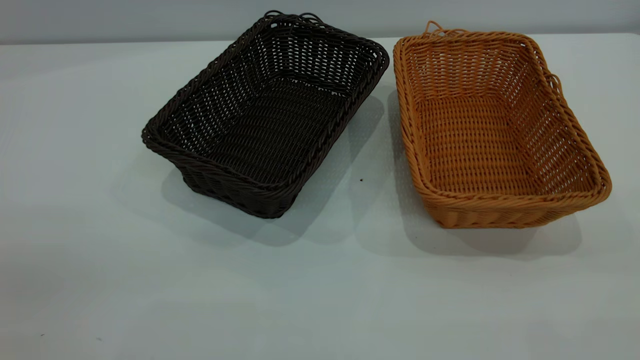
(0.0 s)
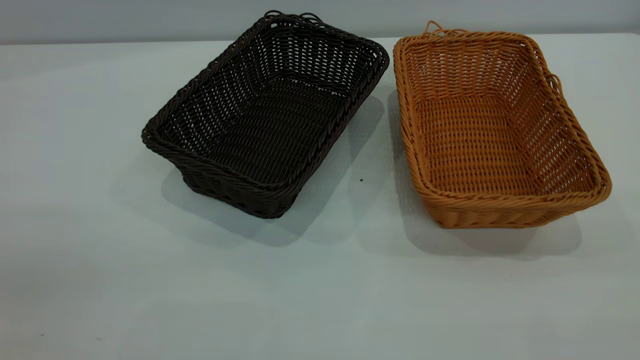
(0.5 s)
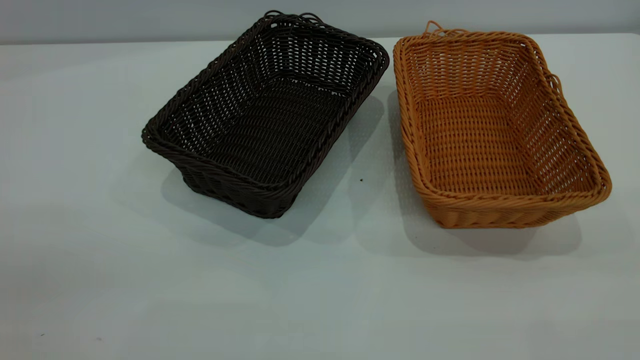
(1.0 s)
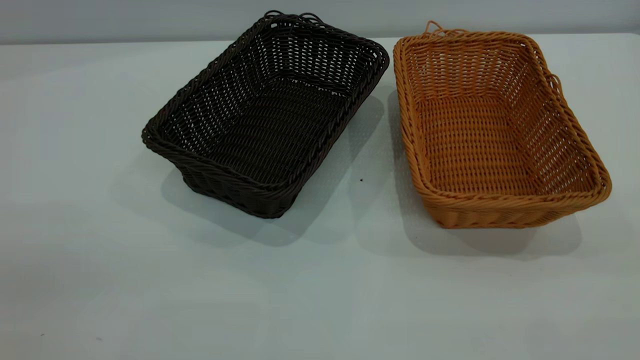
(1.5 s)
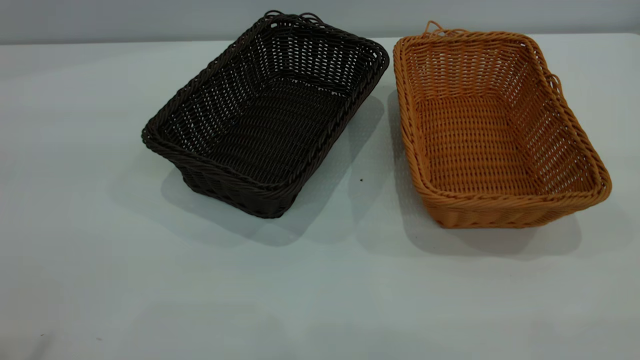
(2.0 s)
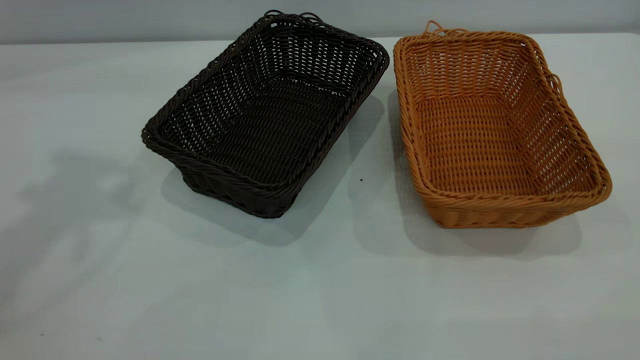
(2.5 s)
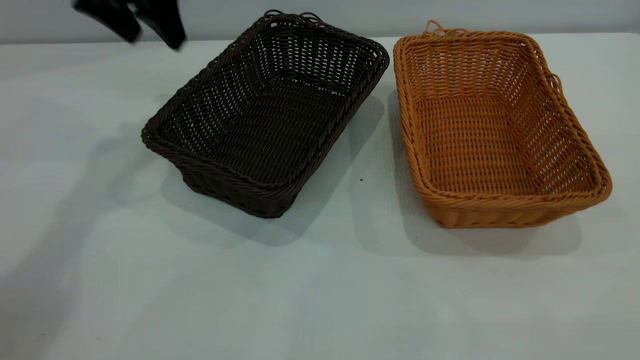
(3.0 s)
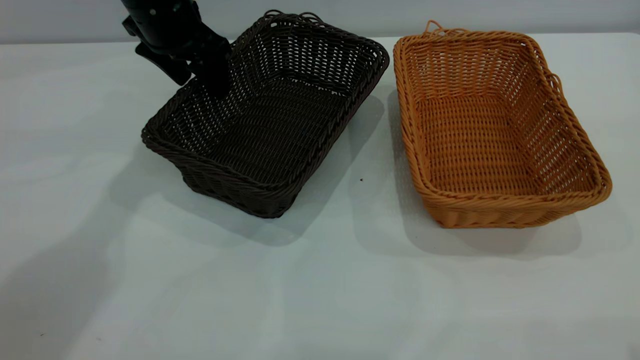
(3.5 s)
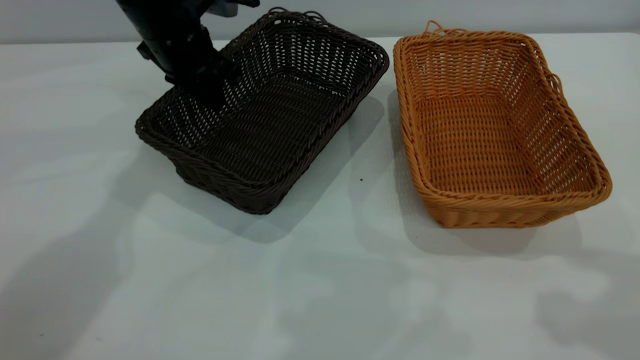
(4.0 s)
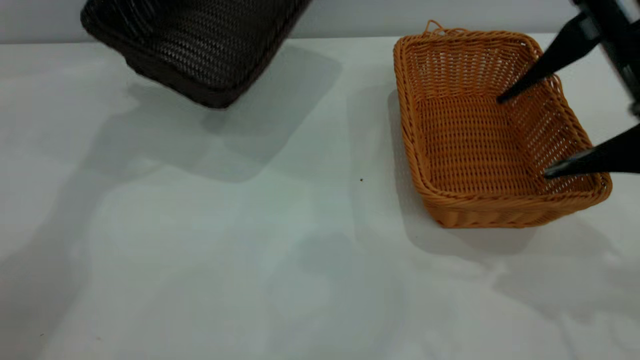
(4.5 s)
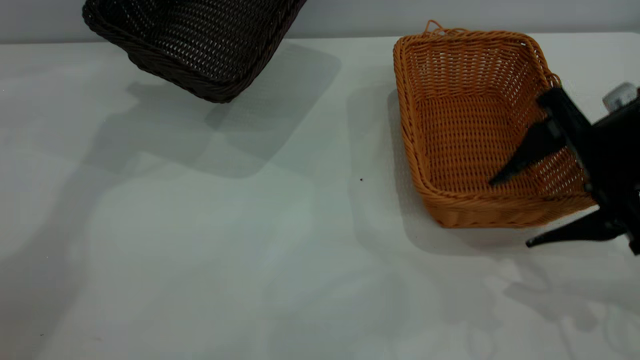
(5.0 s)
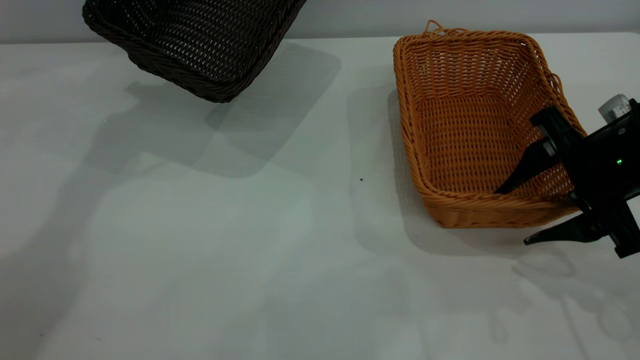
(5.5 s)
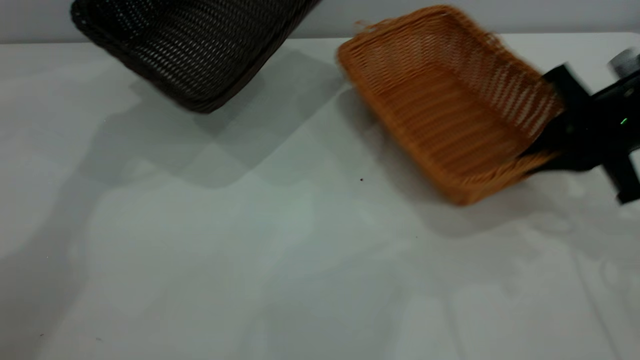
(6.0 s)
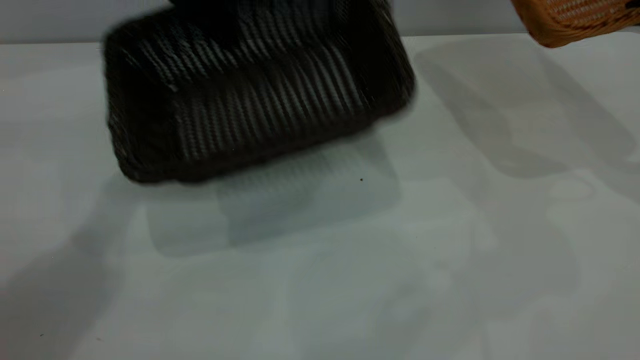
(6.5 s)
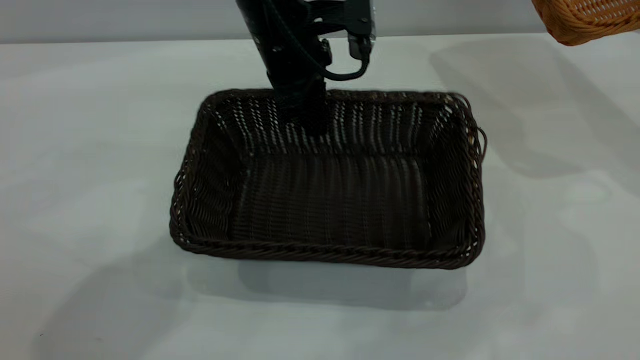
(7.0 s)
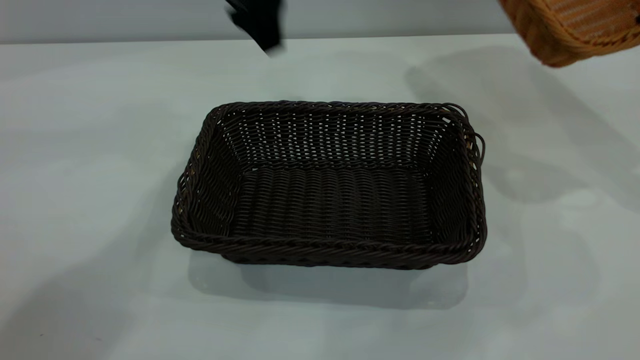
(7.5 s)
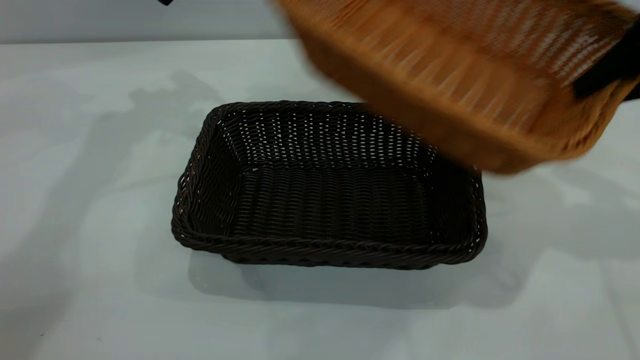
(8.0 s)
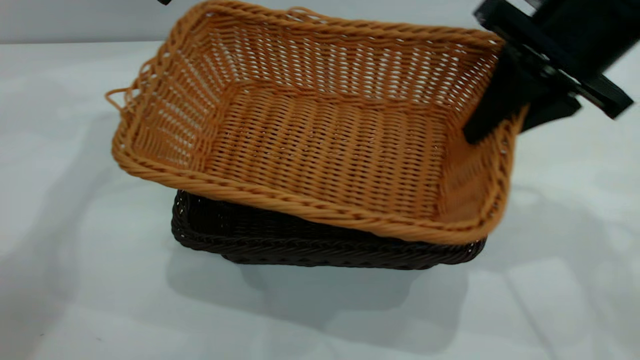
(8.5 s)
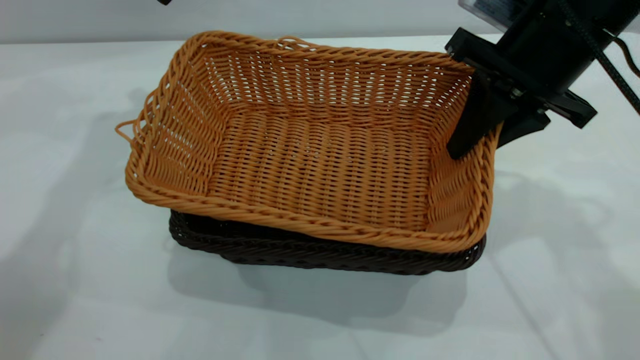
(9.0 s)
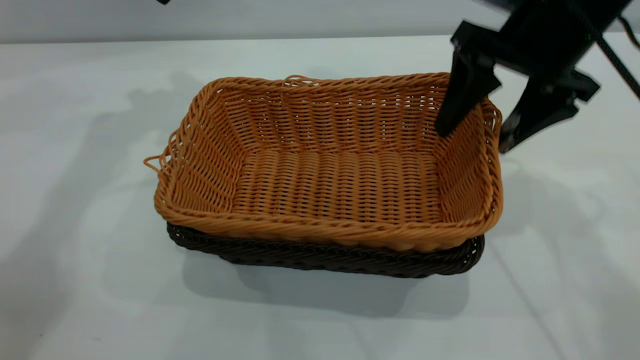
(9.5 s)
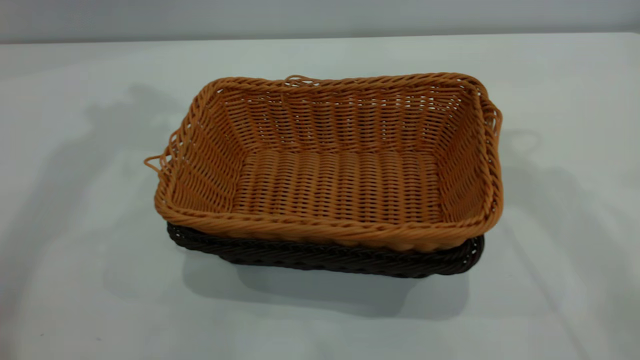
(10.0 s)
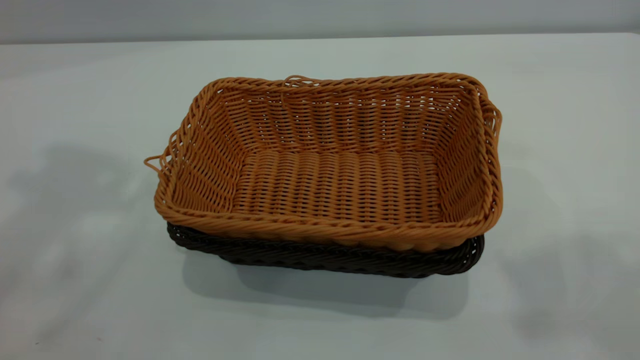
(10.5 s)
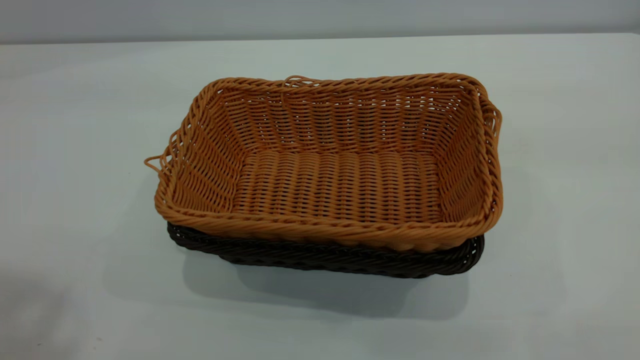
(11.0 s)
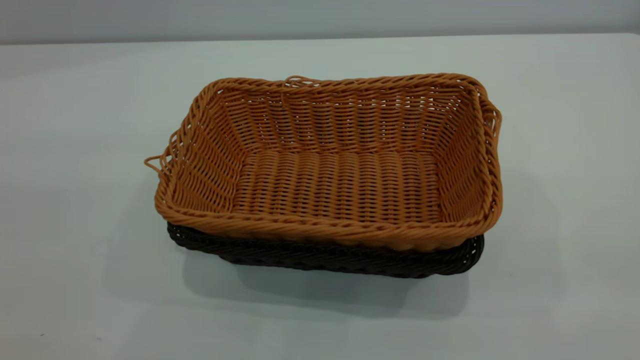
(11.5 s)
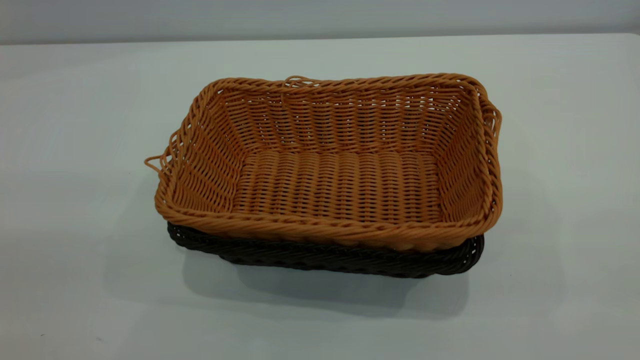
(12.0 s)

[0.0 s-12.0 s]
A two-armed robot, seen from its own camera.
Task of the whole recording: the left gripper grasp the black basket and place it in the center of the table, the right gripper grasp the brown basket and place it inside the black one.
Step, 0.0 to 6.0 s: Pick up the light basket with the right gripper.
Step, 6.5 to 7.0 s: Move the dark basket to the center of view.
Step, 7.5 to 9.5 s: Place the light basket on the dark basket.
2.0 to 4.0 s: The left gripper moves forward and downward, approximately 50 cm, and closes up, while the right gripper goes some 20 cm forward and downward.
4.0 to 6.0 s: The left gripper is displaced upward and to the left by roughly 15 cm, while the right gripper travels downward and forward by roughly 25 cm, and closes its fingers.
6.0 to 8.0 s: The right gripper shifts about 10 cm upward, and reaches some 10 cm to the right, then returns, while the left gripper travels to the right and back again, some 20 cm each way, and opens.
8.0 to 10.0 s: The right gripper goes approximately 15 cm upward and to the left, and opens up, while the left gripper goes about 20 cm upward and backward.
